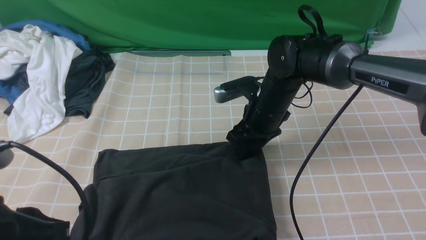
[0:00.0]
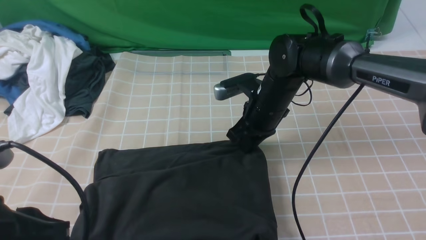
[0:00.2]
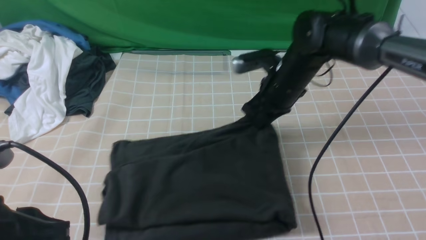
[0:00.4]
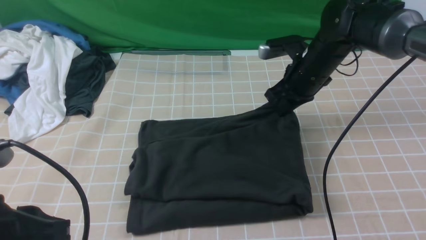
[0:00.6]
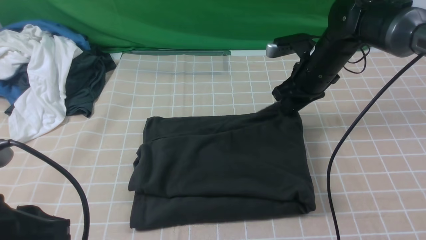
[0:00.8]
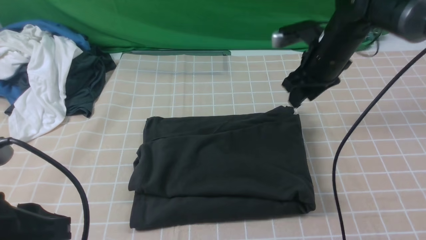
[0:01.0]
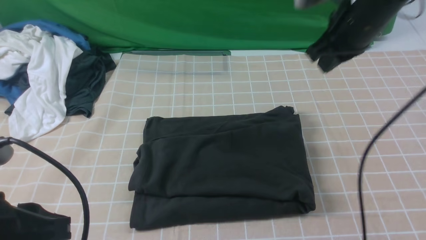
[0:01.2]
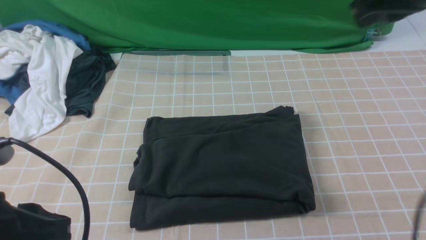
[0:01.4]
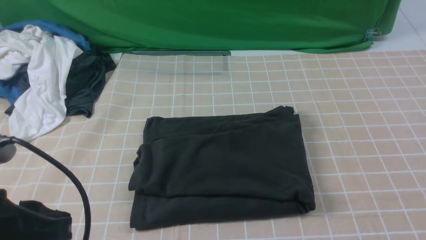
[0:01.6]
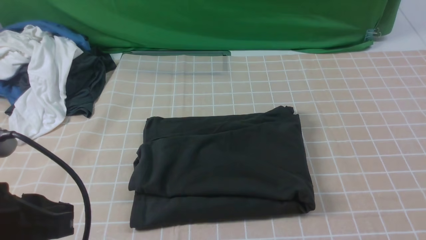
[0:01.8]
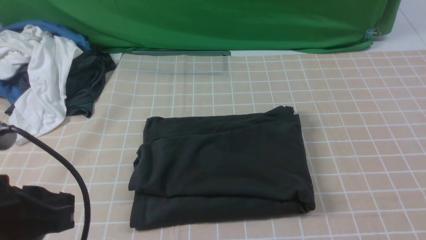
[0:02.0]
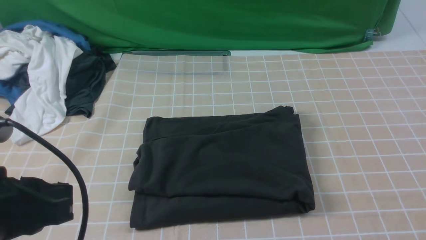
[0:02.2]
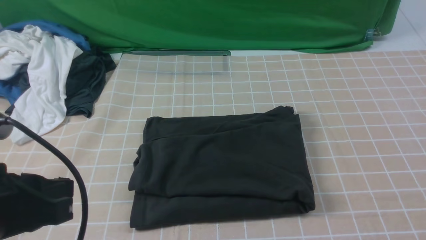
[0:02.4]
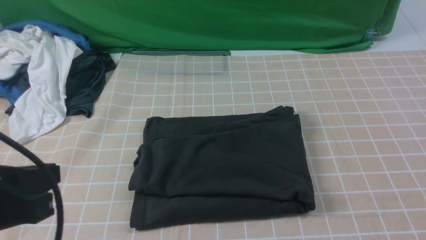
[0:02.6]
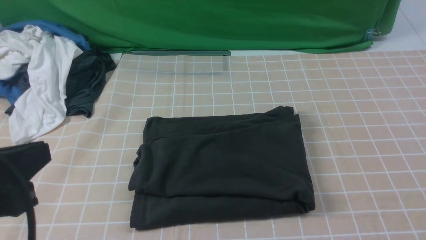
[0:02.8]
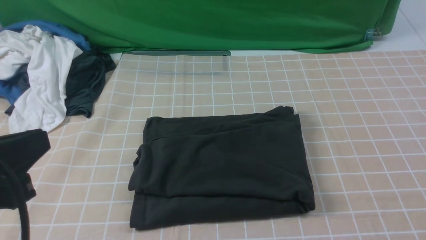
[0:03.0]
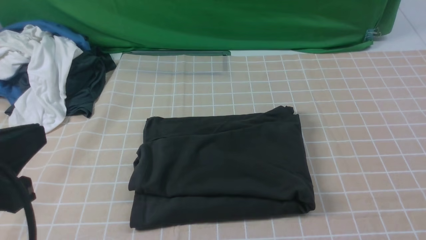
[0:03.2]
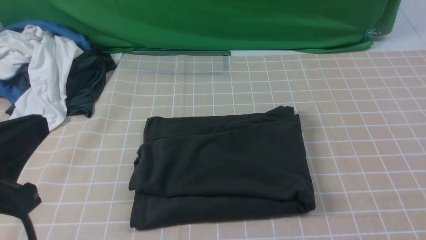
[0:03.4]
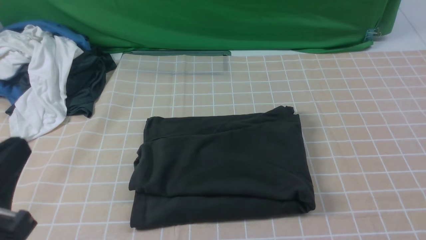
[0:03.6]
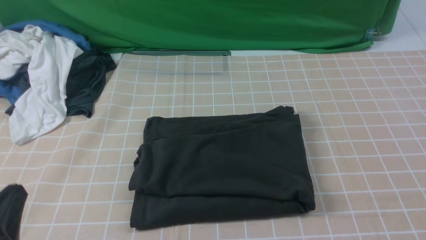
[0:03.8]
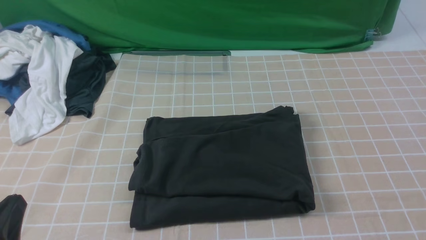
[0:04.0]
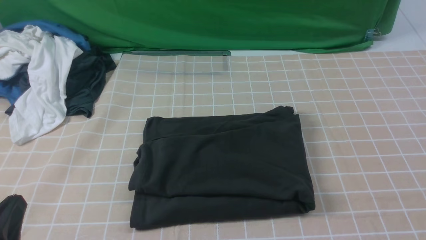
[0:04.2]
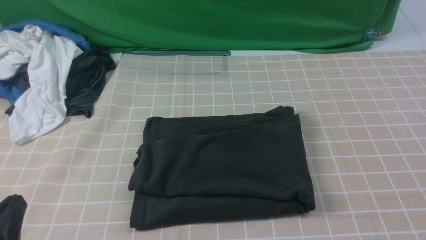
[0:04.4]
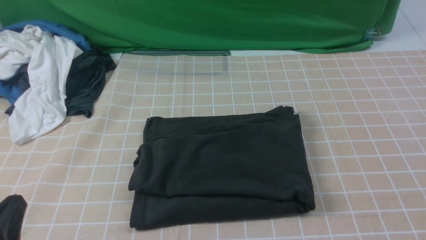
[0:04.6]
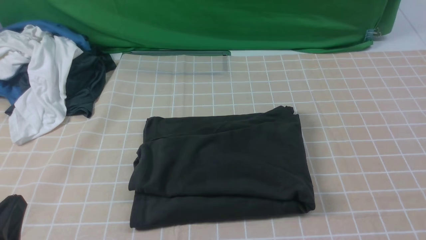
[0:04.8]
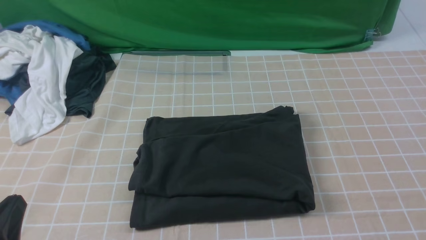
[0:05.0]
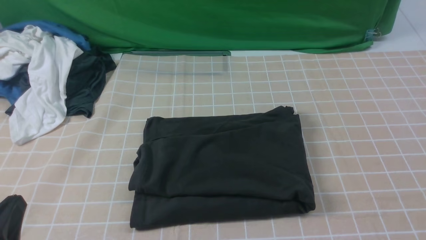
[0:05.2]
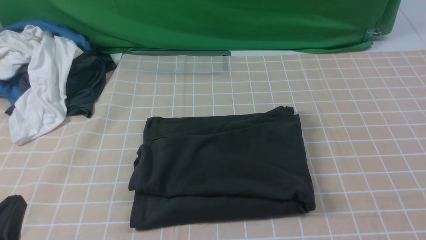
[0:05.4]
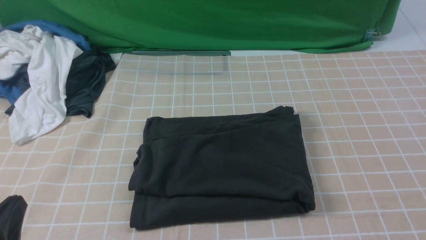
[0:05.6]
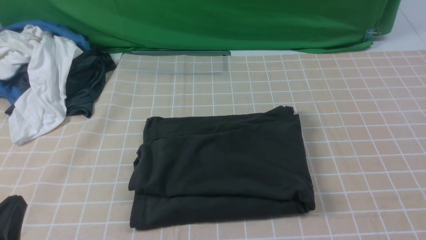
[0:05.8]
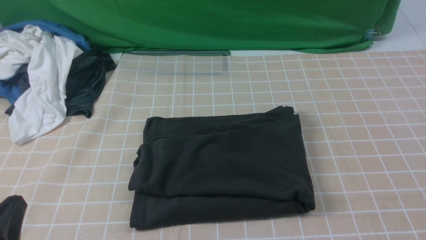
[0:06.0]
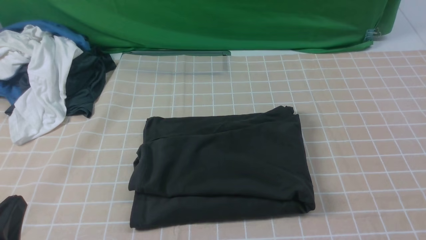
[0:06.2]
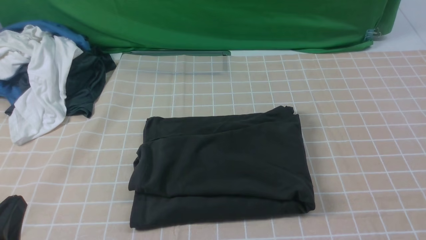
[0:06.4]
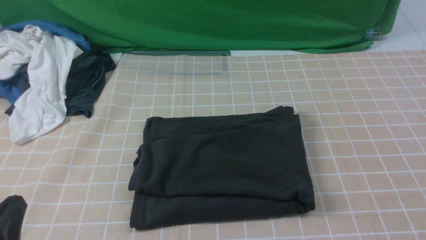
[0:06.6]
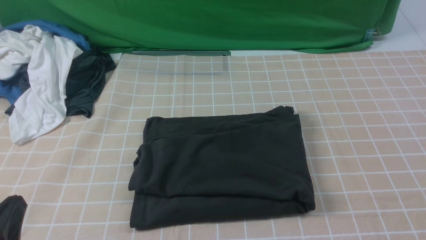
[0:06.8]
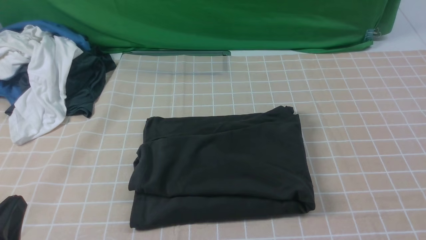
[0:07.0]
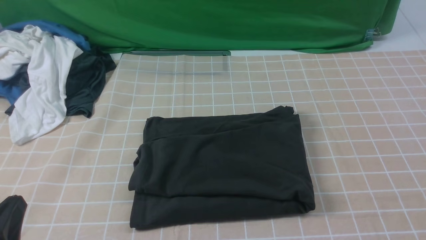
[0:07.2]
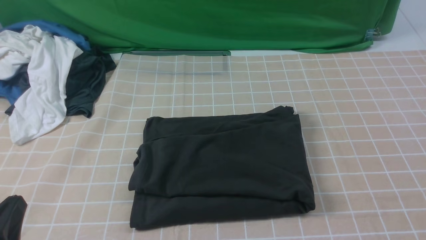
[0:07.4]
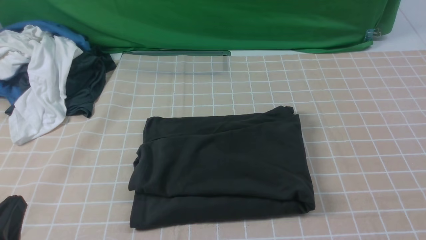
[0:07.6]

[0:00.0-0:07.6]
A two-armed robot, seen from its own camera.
0:00.0 to 0:01.6: The right gripper heads upward, backward and to the right, covering roughly 40 cm, and closes up.
0:03.0 to 0:04.6: The left gripper moves downward, roughly 15 cm.
0:06.0 to 0:07.6: Both grippers stay about where they are.

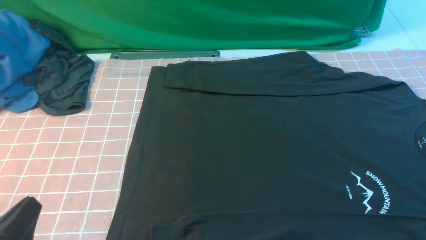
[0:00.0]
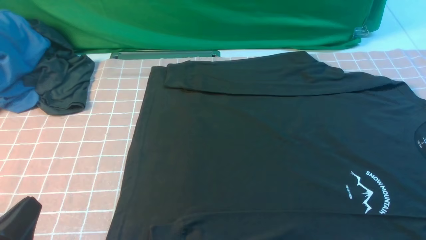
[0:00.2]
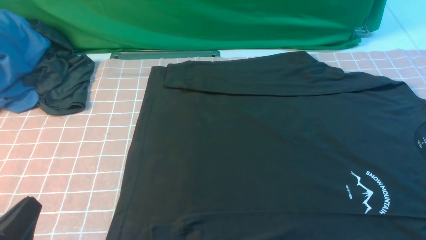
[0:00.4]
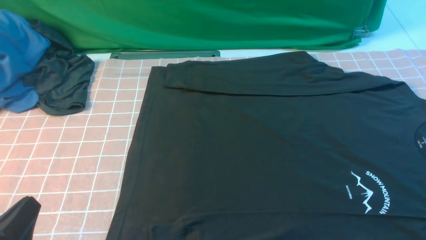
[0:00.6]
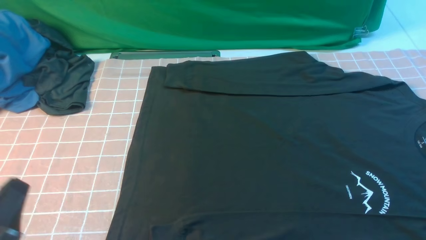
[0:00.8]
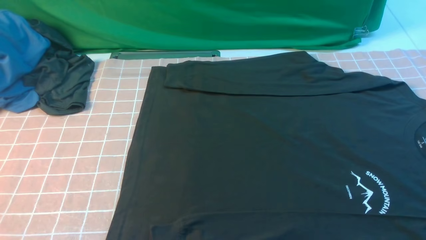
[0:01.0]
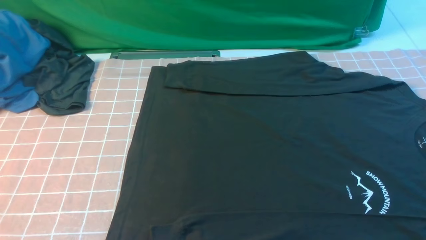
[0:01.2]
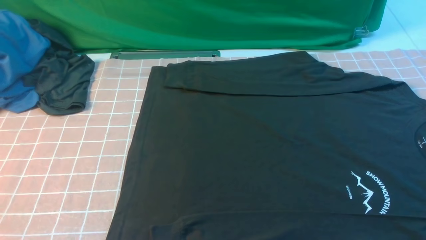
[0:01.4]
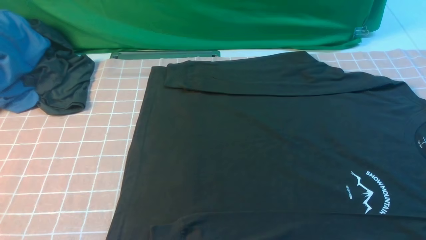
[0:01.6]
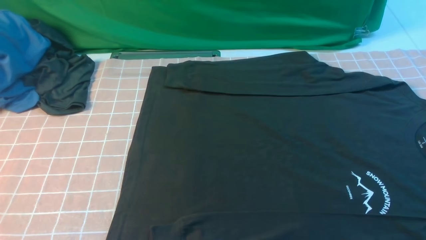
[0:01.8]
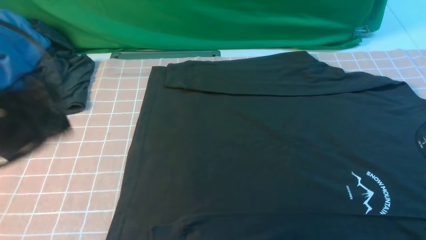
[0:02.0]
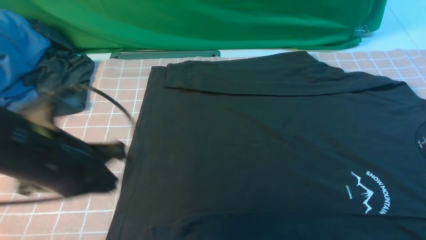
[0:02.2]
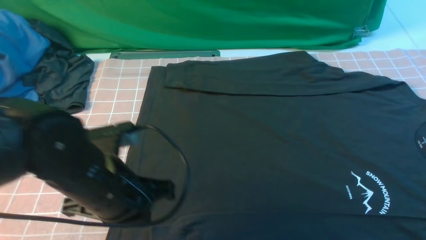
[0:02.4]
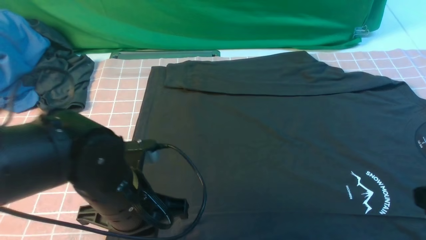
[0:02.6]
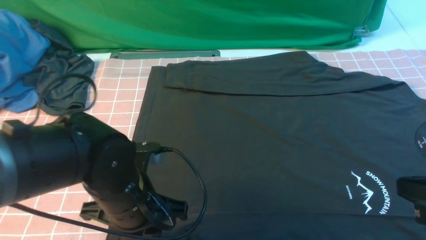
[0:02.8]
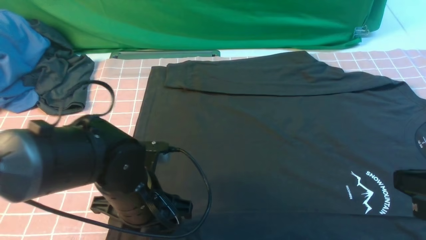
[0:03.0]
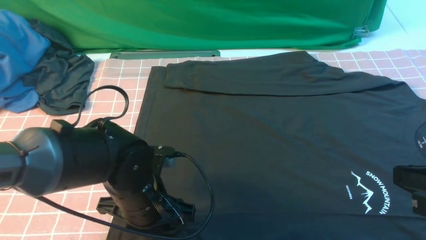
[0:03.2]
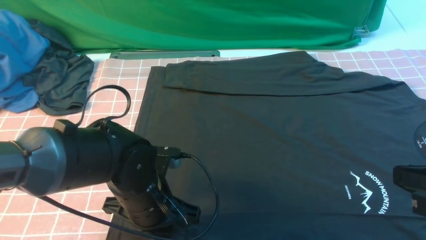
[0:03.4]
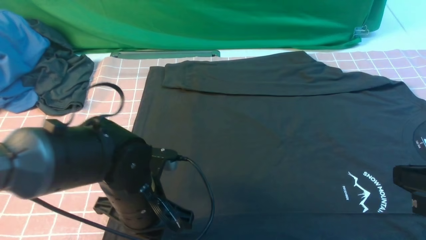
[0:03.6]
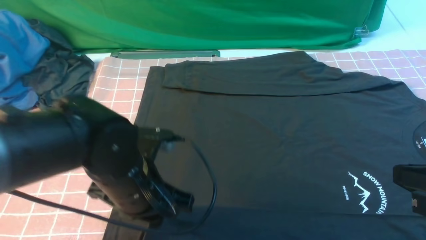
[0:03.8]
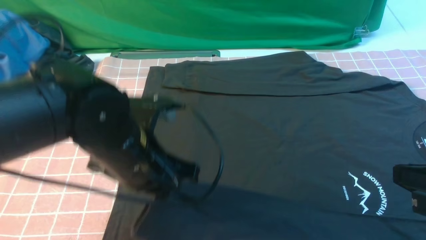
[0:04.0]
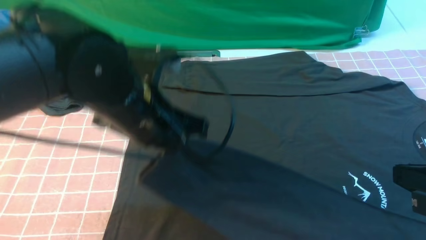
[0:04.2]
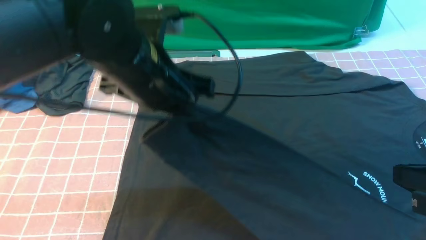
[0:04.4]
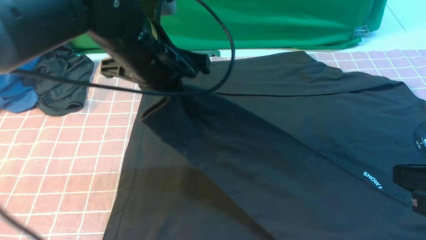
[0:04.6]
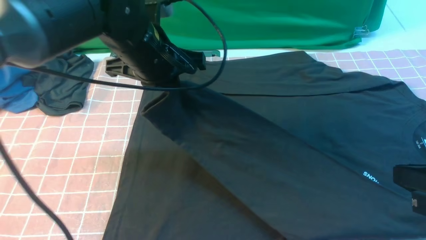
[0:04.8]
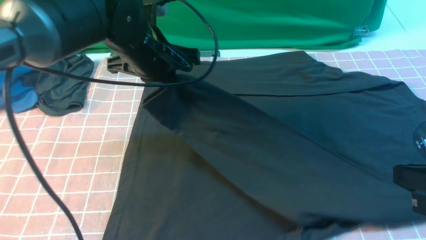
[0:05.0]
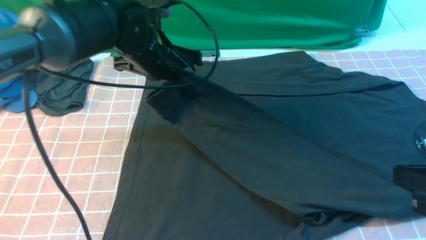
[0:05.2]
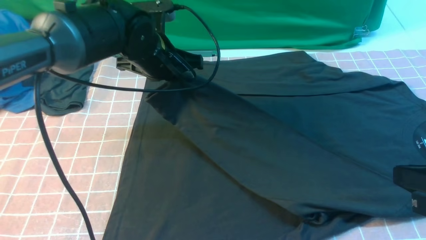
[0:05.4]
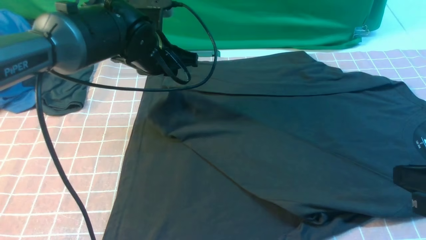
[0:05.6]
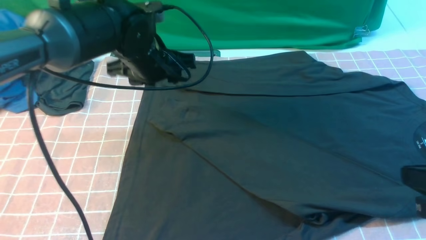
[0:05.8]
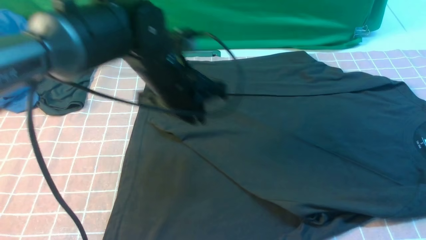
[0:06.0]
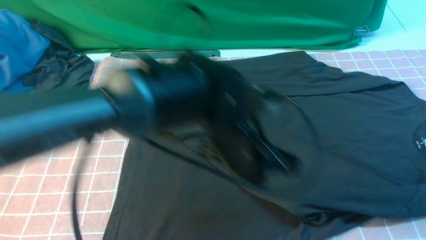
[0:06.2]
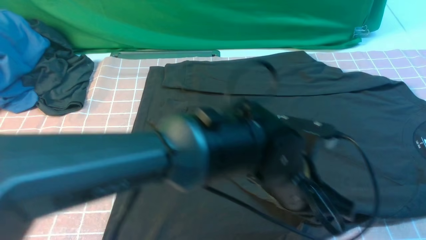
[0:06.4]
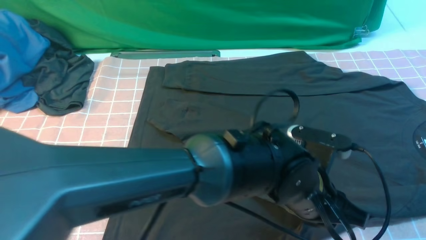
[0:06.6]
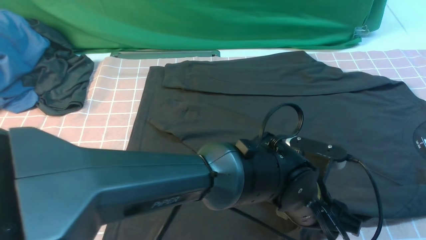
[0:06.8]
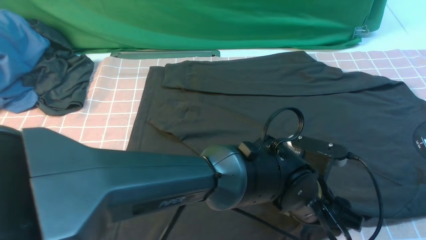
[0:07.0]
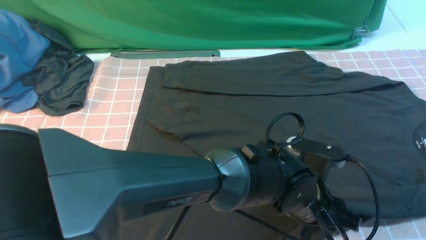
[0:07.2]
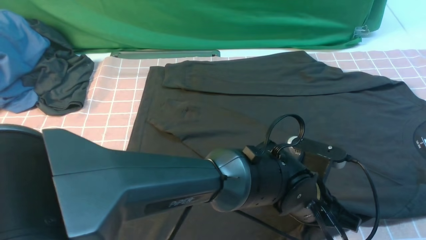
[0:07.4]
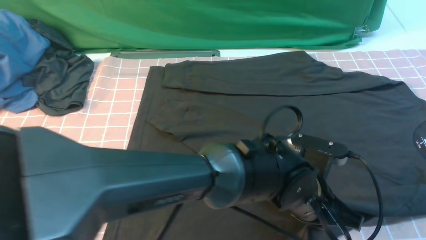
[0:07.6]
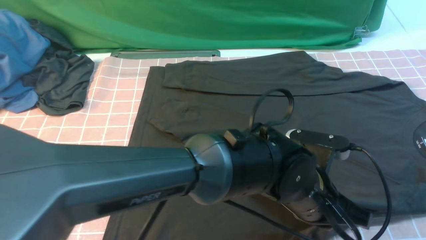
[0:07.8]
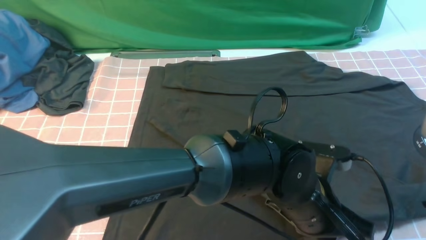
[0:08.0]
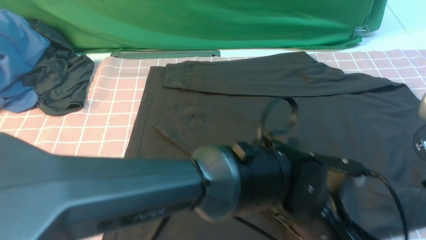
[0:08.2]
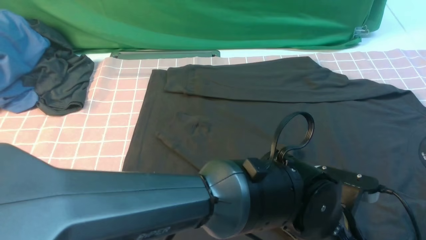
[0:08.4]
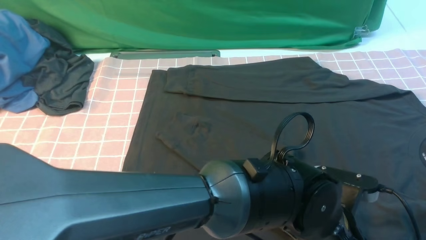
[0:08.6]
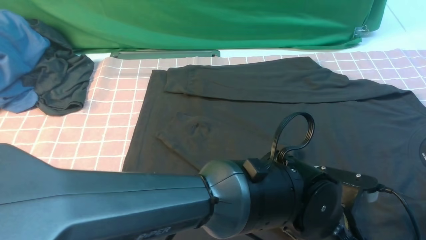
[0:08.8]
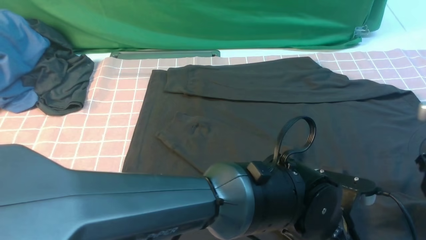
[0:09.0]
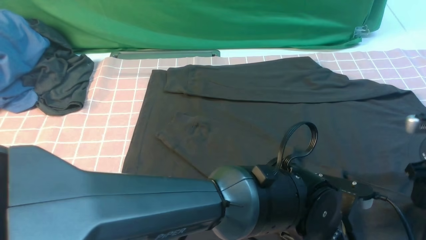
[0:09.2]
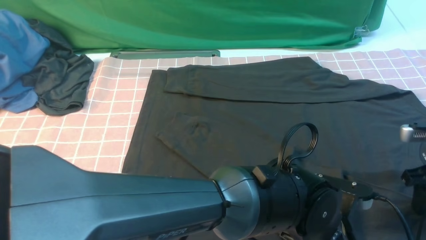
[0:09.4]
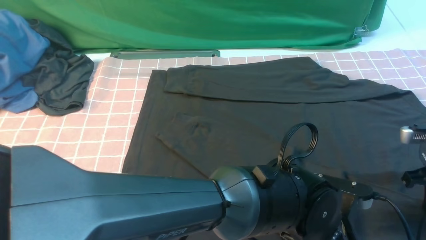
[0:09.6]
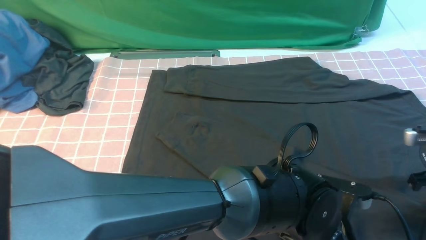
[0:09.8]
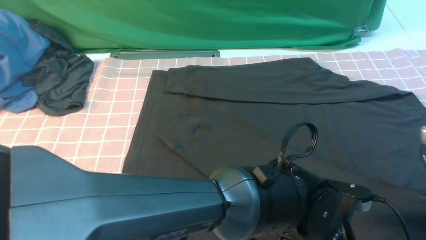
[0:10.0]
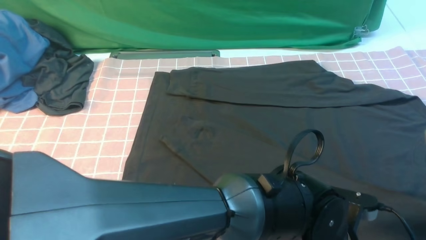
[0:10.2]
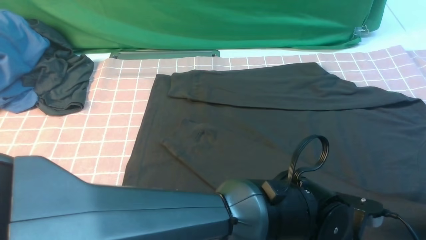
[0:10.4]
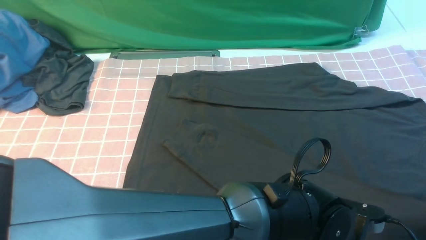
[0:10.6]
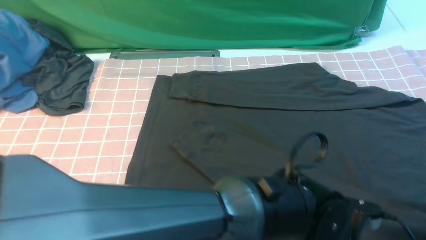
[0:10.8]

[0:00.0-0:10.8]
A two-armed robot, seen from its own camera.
Step, 0:00.0 to 0:03.4: use the left arm to clamp the cuff closest to it.
Step, 0:03.8 to 0:05.6: use the left arm to drag and place the cuff at the centered position on the left edge of the fabric.
0:00.0 to 0:01.6: The left gripper travels upward by some 15 cm.
0:01.6 to 0:03.0: The left gripper travels downward, forward and to the right by approximately 30 cm, and opens. The right gripper goes some 10 cm forward, upward and to the left, and closes its fingers.
0:03.0 to 0:04.6: The left gripper travels upward and forward by roughly 20 cm, and closes its fingers.
0:04.6 to 0:06.2: The left gripper moves to the right and downward, roughly 15 cm, and opens and closes again.
0:06.2 to 0:07.8: The left gripper heads to the right and backward, covering approximately 10 cm, and opens, then closes once more.
0:07.8 to 0:09.2: The left gripper shifts by approximately 5 cm. Meanwhile the right gripper moves forward, downward and to the right, roughly 20 cm, and opens up.
0:09.2 to 0:10.8: The left gripper opens. The right gripper closes its fingers.
